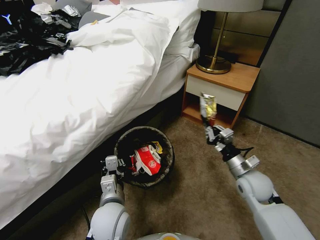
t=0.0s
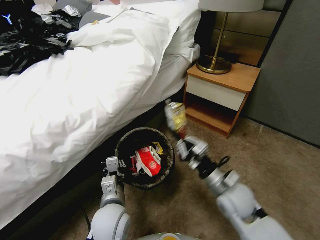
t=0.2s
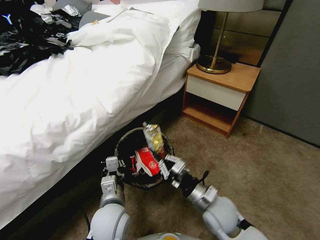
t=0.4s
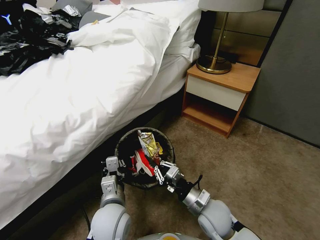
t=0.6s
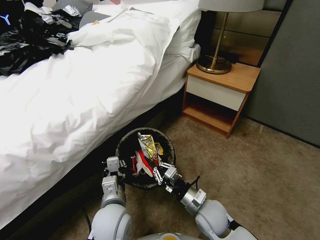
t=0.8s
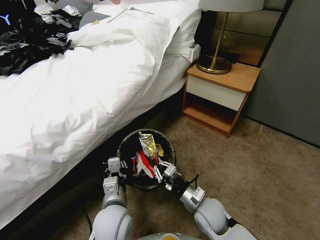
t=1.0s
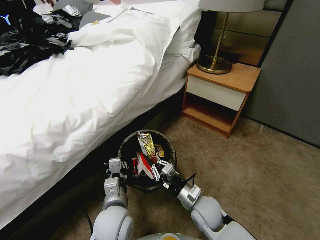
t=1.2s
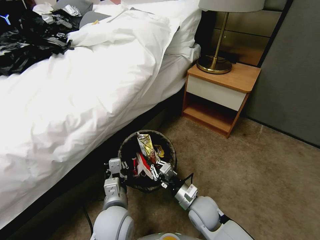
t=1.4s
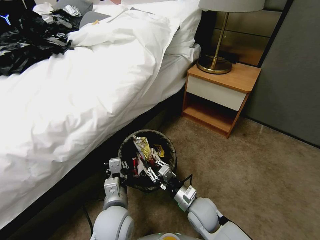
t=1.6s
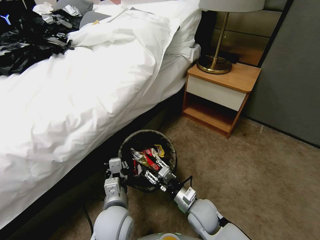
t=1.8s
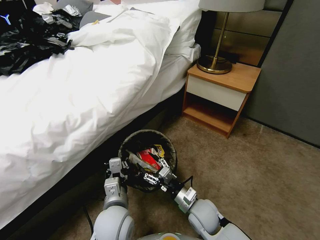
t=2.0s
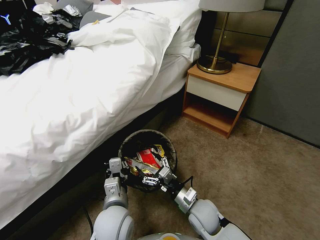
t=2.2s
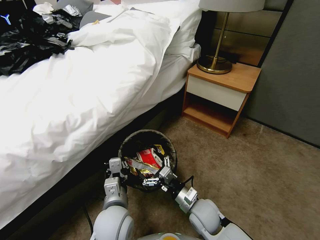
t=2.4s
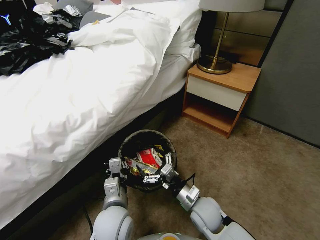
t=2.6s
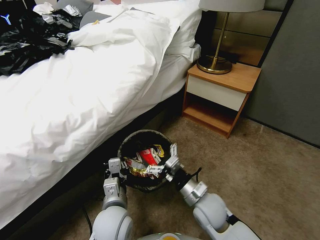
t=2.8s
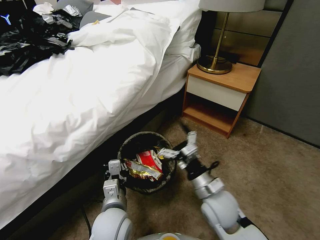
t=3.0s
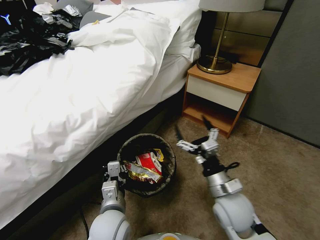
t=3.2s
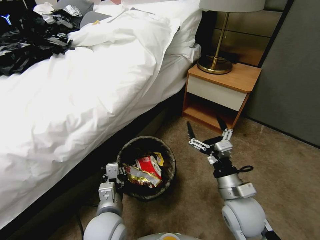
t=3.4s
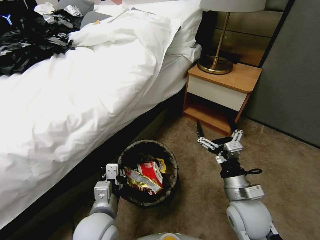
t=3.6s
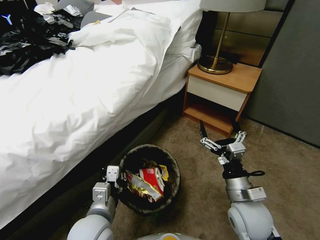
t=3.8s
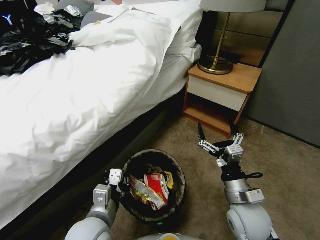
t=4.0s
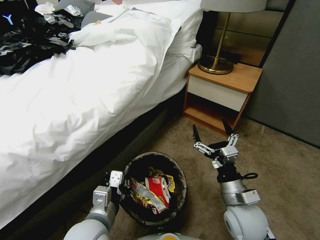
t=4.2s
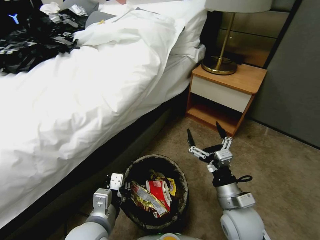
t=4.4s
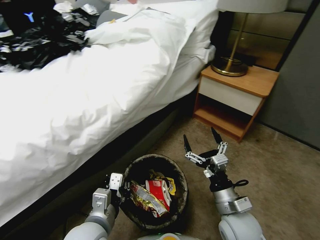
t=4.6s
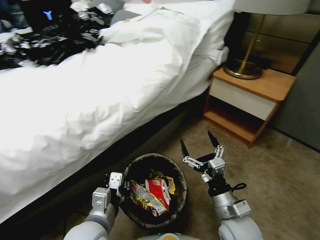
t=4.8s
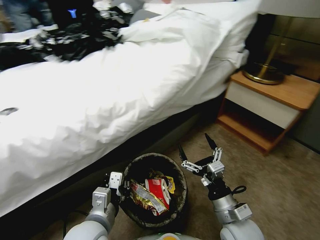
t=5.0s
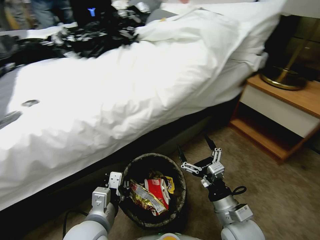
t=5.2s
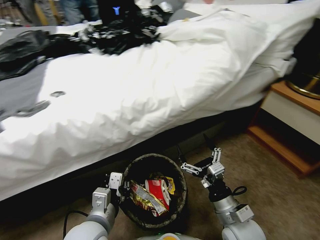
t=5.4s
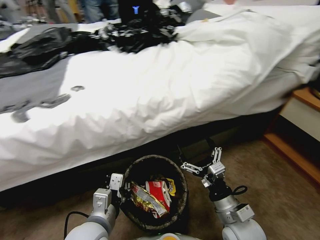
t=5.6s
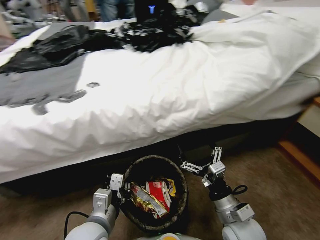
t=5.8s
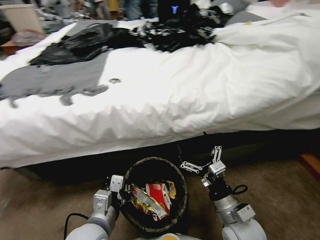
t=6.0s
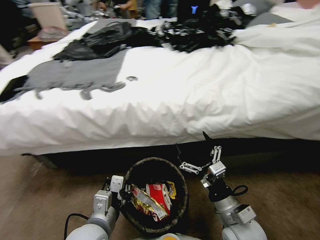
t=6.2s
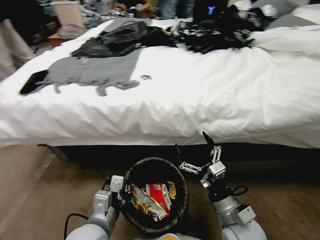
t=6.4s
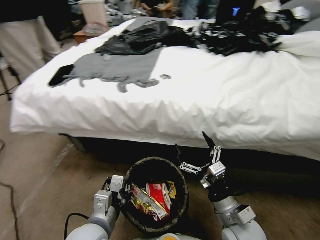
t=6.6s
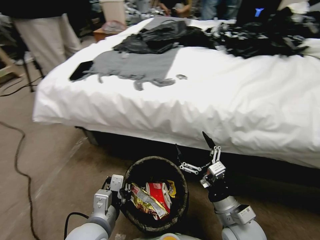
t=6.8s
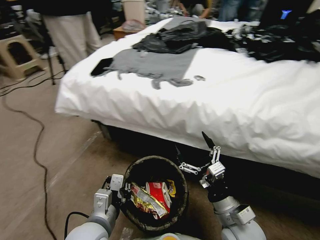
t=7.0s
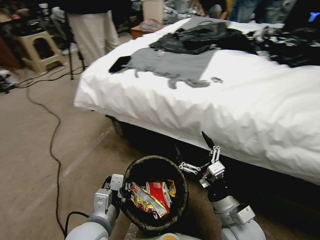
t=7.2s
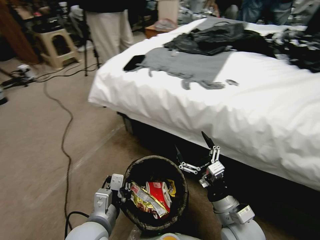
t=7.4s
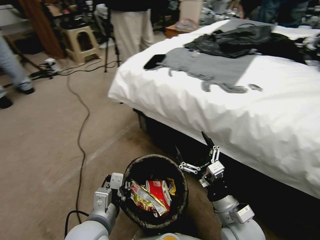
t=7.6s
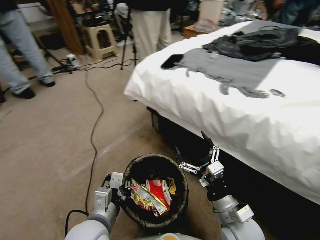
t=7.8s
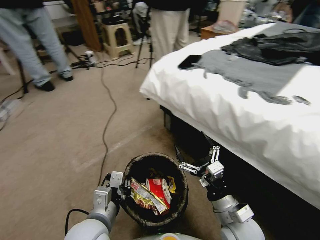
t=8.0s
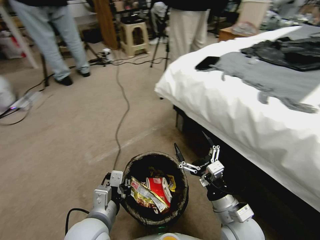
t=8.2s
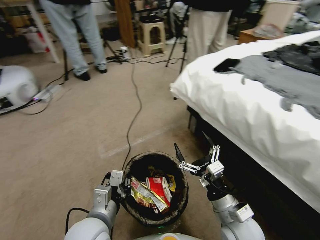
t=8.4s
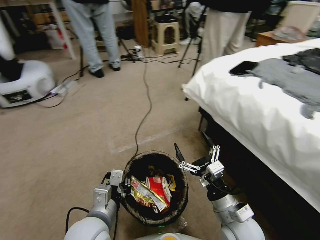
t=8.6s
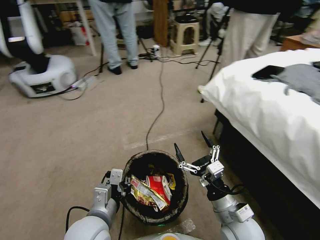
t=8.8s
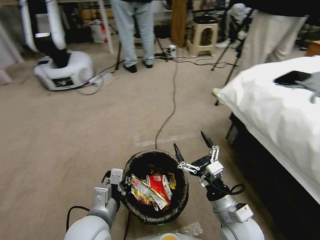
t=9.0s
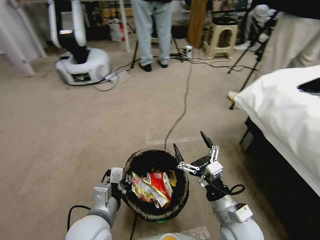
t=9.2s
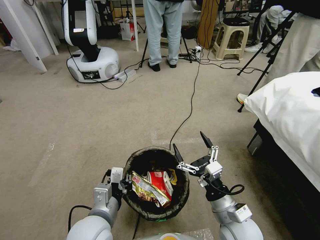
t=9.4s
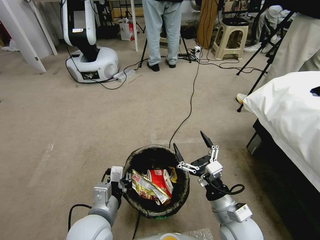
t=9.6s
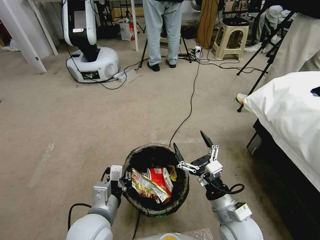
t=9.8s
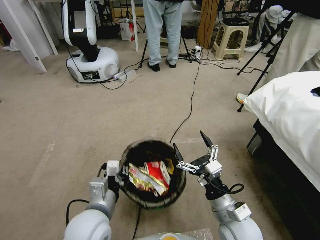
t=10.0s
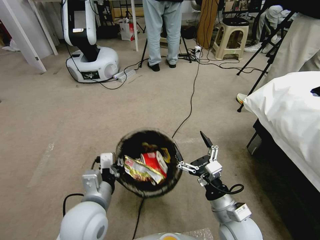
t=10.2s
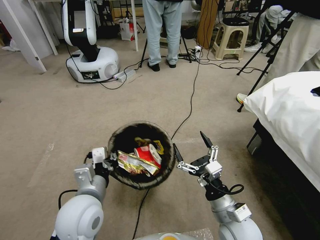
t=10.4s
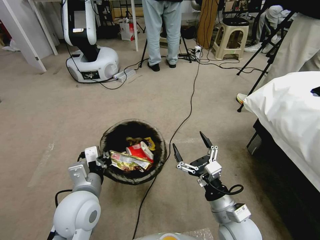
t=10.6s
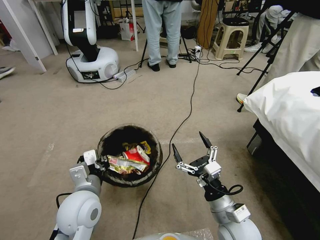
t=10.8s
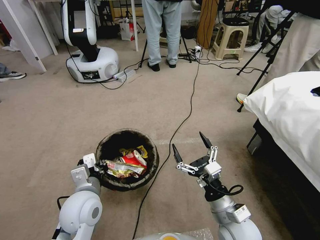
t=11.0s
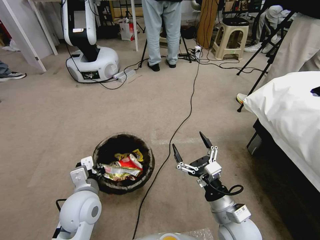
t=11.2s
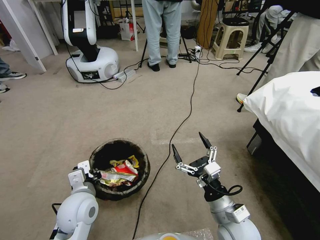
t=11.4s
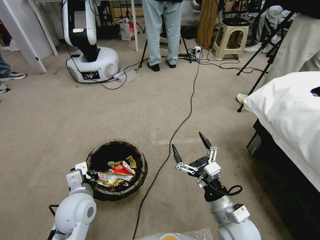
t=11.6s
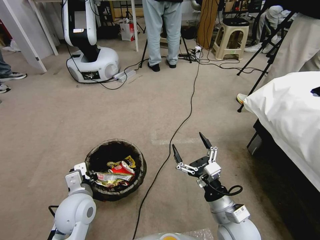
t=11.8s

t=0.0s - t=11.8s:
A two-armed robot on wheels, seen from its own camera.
Task of the whole recording: Pick up the trash bin, then pick up the garbage from the floor and place it into the trash bin.
t=0.0s - t=1.4s: The right gripper shifts about 20 cm to the left and downward.
t=1.4s - t=3.0s: The right gripper goes about 10 cm upward, and opens.
t=3.0s - t=4.4s: The left gripper moves some 5 cm. Meanwhile the right gripper ends up some 5 cm from where it was.
t=8.8s - t=10.4s: The left gripper ends up approximately 5 cm from where it was.
t=10.4s - t=11.8s: The left gripper travels downward by about 5 cm.

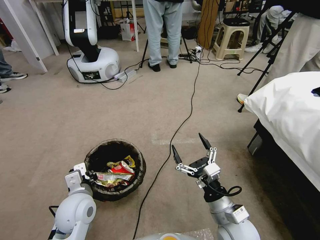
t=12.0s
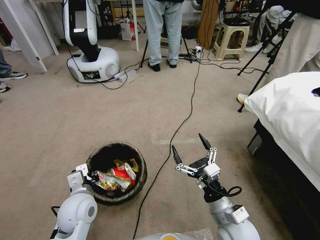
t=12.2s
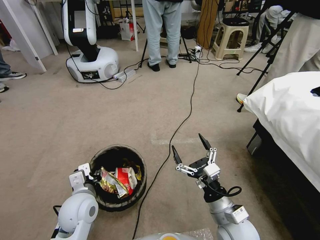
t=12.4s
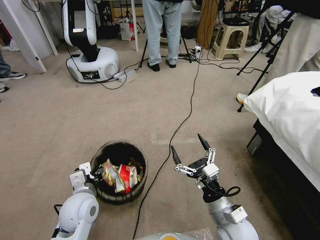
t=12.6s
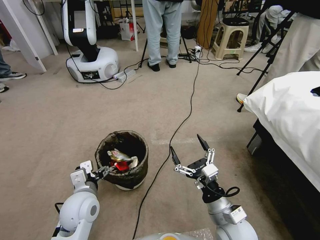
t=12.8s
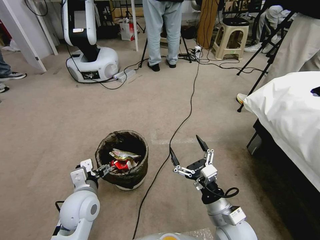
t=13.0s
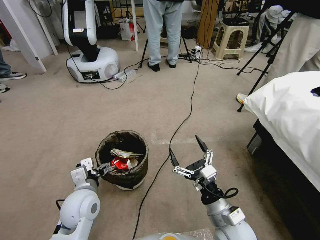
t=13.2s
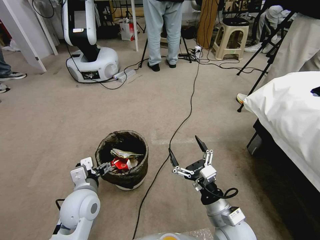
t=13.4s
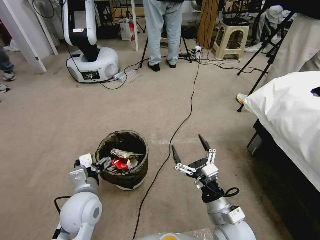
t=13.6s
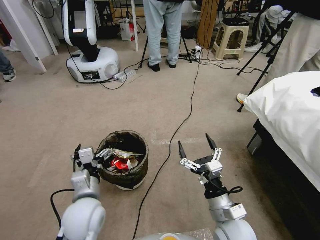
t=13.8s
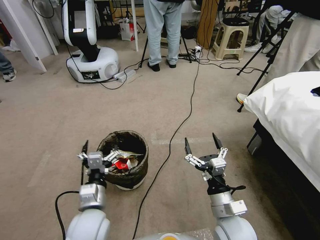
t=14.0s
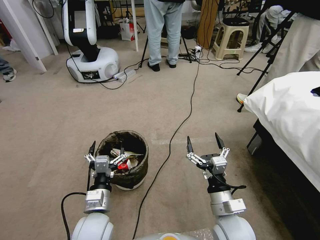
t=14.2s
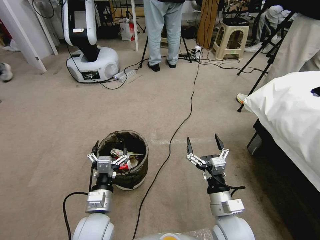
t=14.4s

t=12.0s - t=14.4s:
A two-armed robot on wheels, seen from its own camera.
Task of the whole recording: Pick up the trash bin, then pick up the garbage from the floor and place it into the trash bin.
t=12.0s - t=13.2s: The left gripper opens.
t=13.2s - t=14.4s: The left gripper moves backward, about 5 cm.

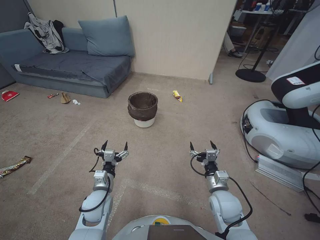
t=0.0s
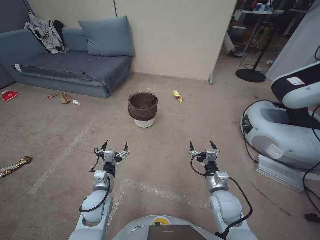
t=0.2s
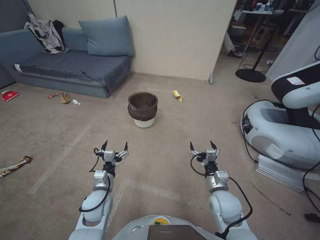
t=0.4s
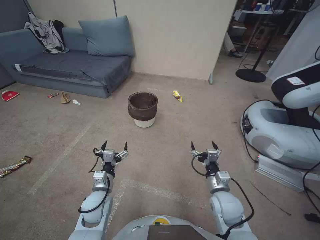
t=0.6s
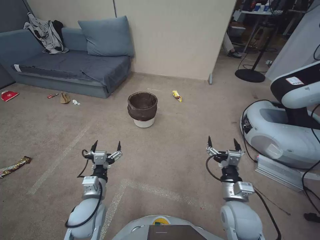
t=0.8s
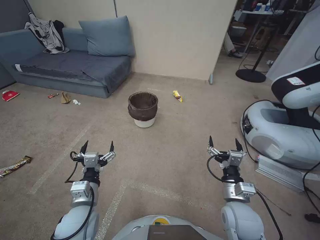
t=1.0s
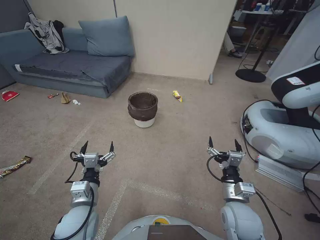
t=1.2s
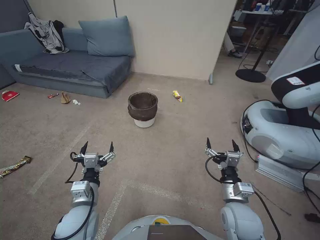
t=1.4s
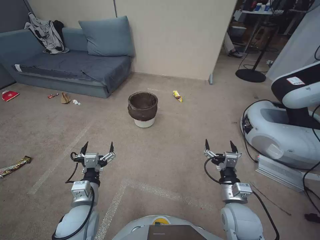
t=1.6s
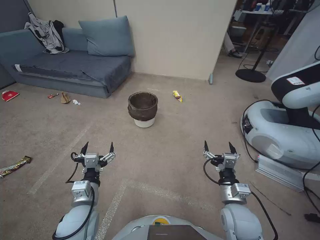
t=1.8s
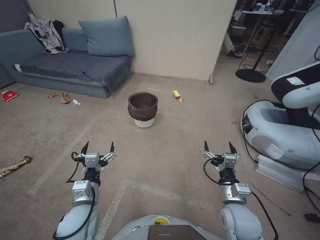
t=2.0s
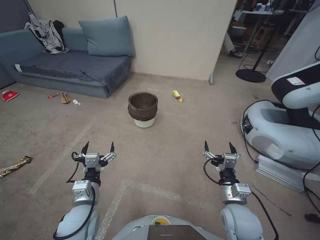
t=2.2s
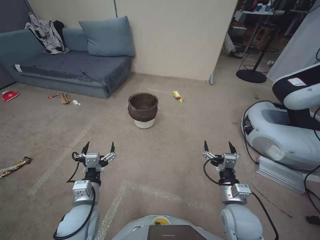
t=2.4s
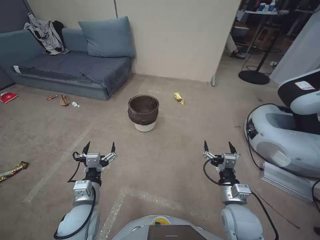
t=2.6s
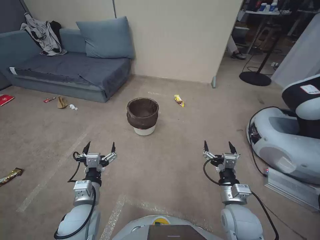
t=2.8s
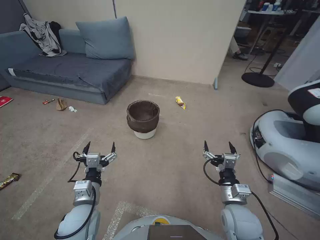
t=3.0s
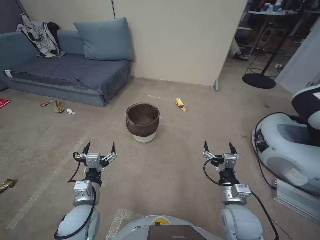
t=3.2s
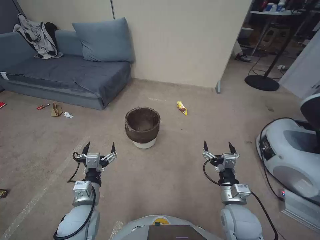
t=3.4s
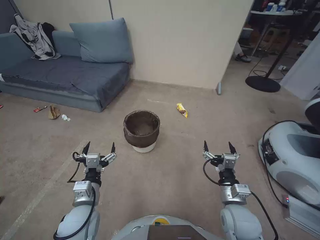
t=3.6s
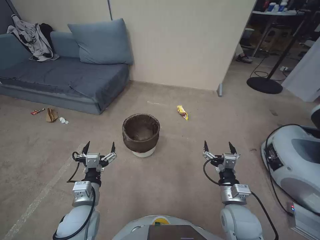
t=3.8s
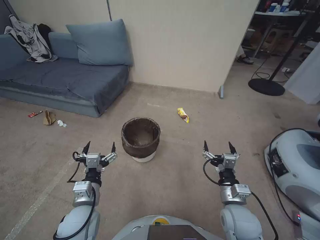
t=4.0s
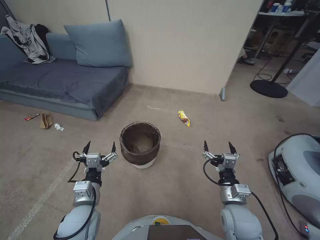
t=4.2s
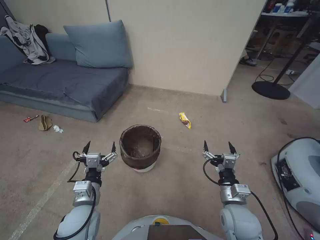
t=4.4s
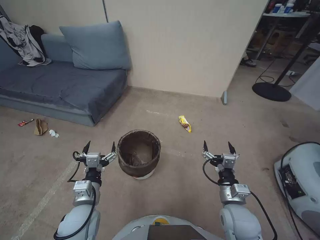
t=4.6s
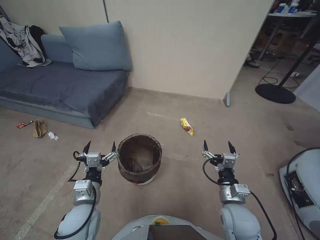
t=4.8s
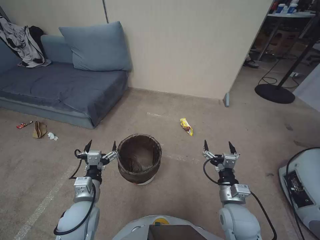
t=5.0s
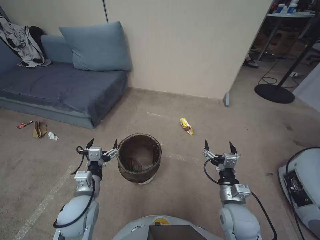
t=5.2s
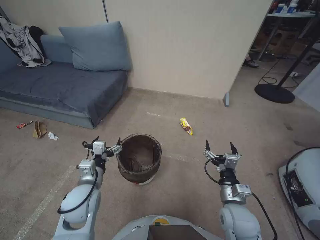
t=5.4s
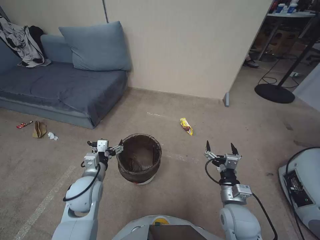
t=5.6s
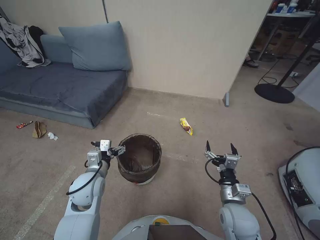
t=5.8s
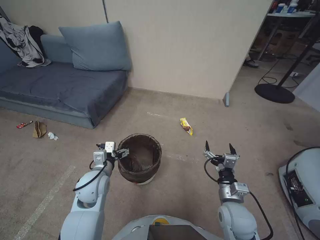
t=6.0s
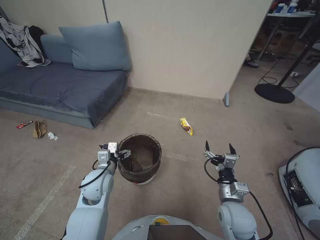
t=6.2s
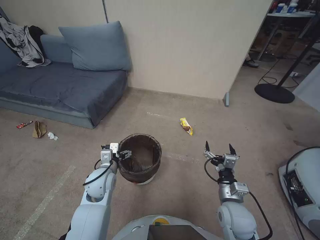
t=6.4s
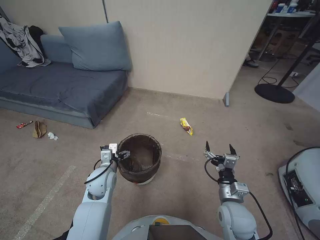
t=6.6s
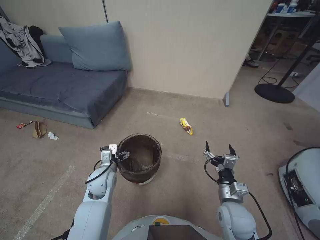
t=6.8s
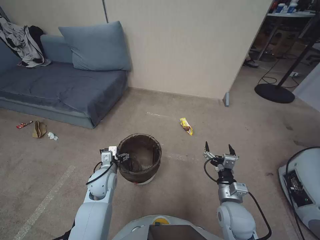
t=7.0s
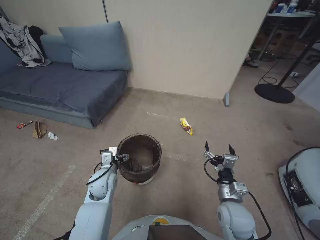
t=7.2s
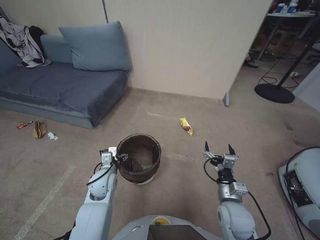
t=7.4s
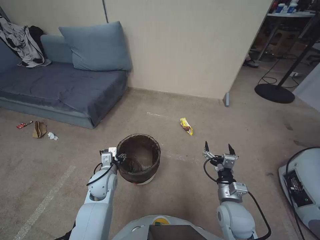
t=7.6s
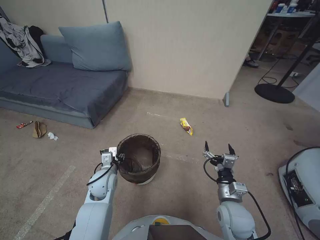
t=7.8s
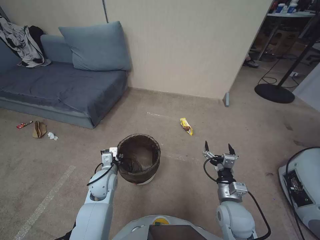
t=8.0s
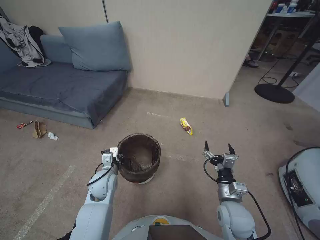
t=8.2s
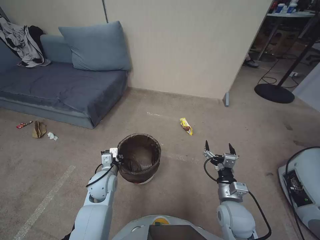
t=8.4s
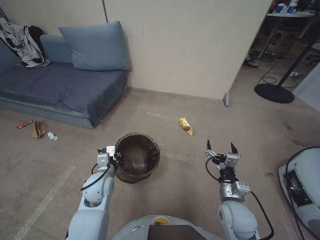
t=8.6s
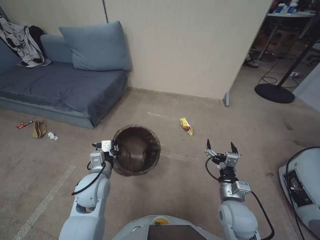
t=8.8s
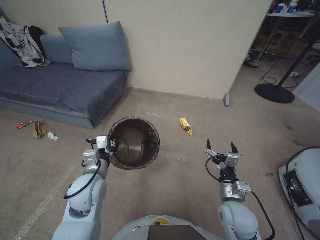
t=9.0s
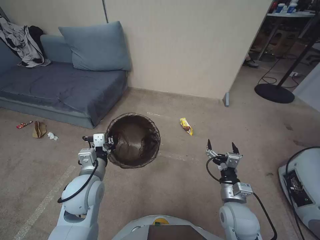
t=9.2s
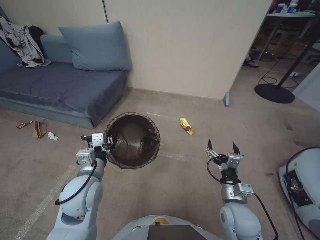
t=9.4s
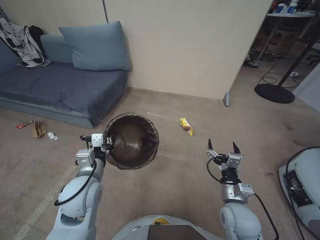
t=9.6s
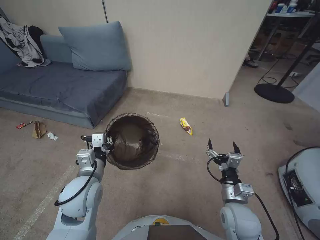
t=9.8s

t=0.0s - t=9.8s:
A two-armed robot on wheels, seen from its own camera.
Task of the whole recording: Pick up the trash bin, then pick up the garbage from the floor and place it into the trash bin.
t=1.4s - t=2.8s: The two grippers keep their place.
t=4.2s - t=5.6s: The left gripper is displaced forward by some 5 cm.
t=5.6s - t=7.0s: The left gripper travels forward and downward by about 10 cm.
t=7.0s - t=8.4s: The left gripper closes.
t=8.4s - t=9.8s: The left gripper goes some 15 cm upward and backward.
